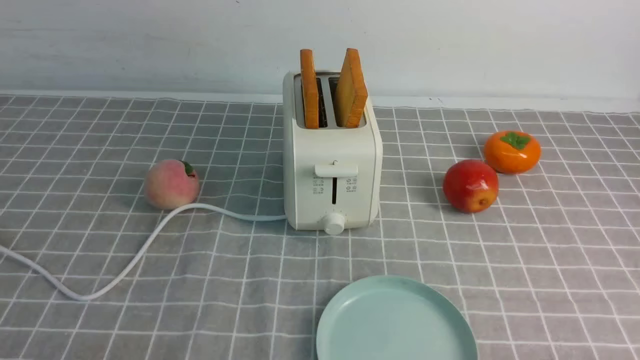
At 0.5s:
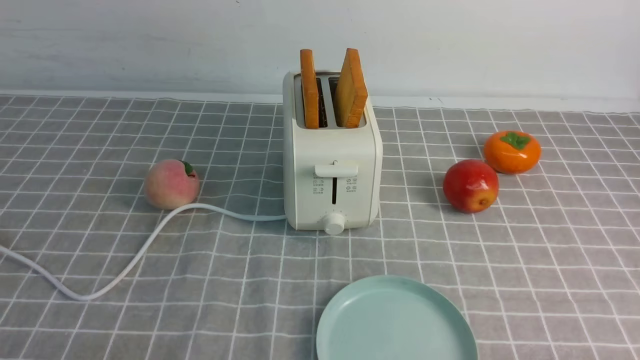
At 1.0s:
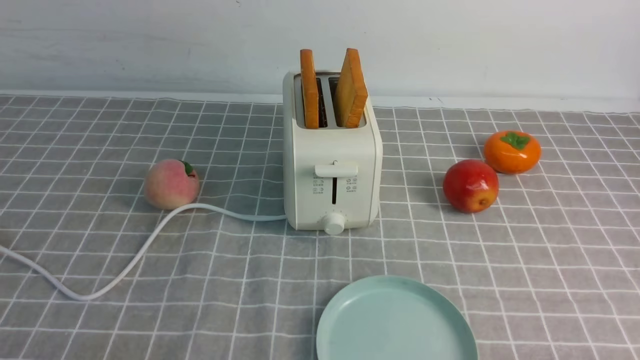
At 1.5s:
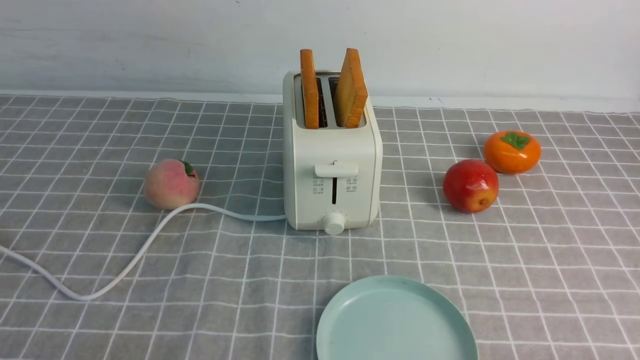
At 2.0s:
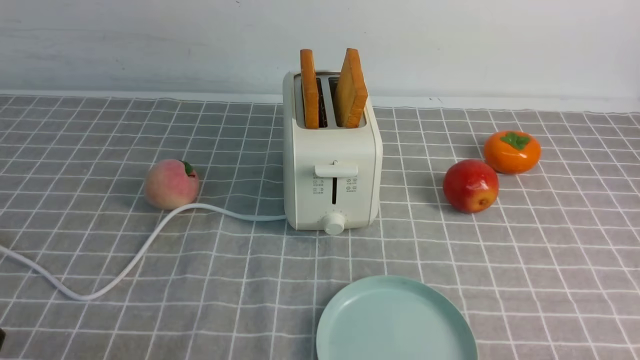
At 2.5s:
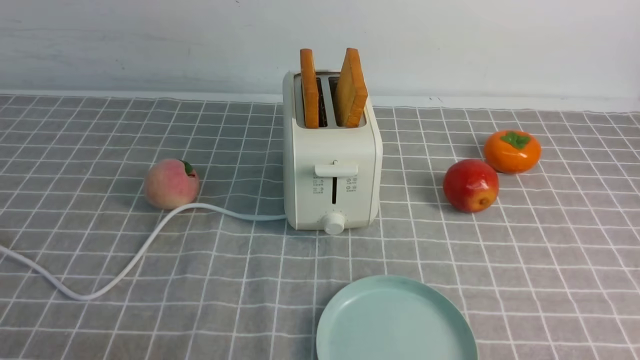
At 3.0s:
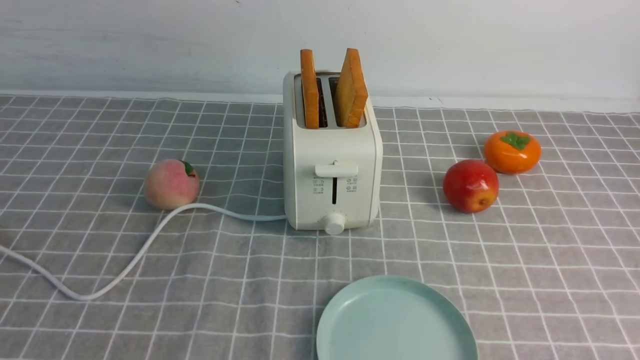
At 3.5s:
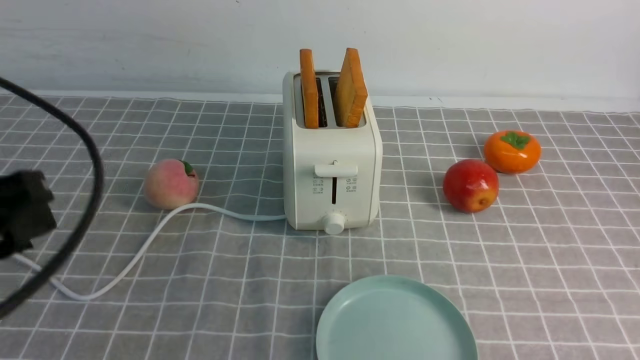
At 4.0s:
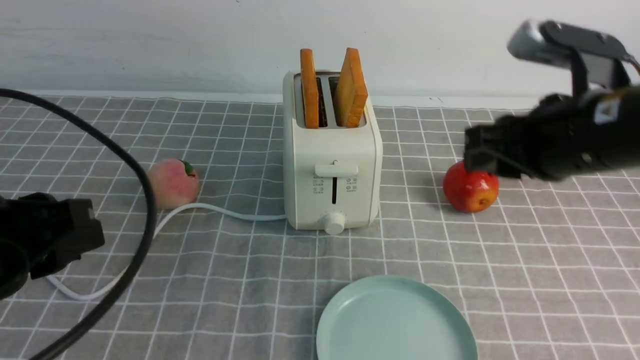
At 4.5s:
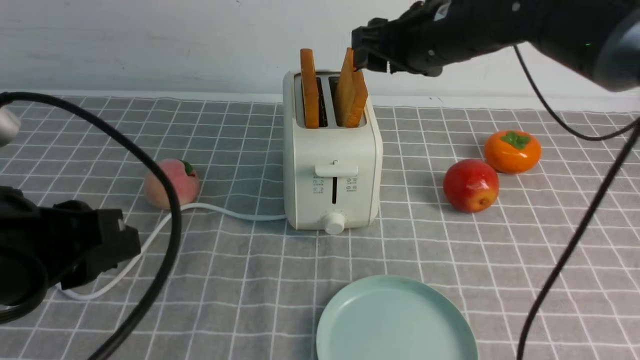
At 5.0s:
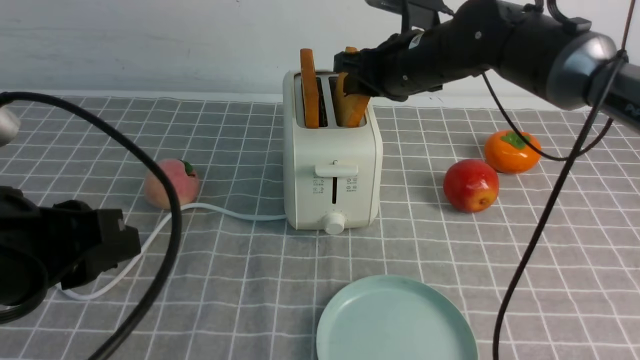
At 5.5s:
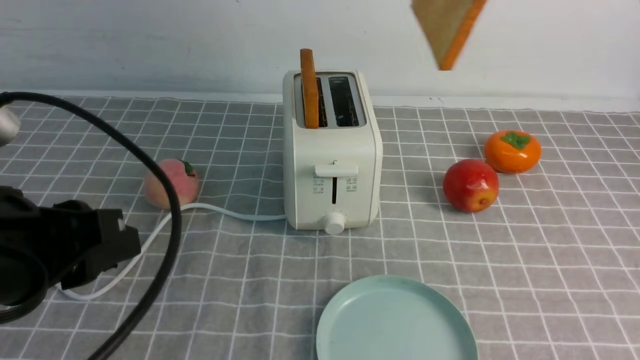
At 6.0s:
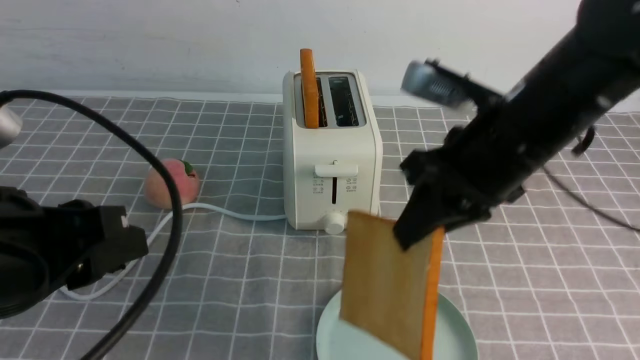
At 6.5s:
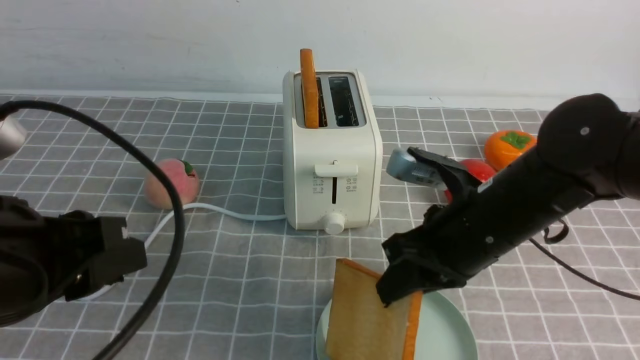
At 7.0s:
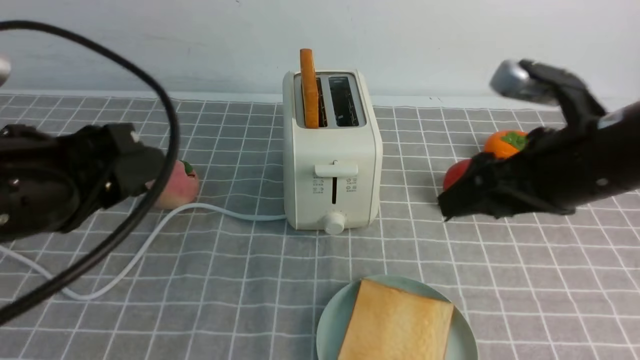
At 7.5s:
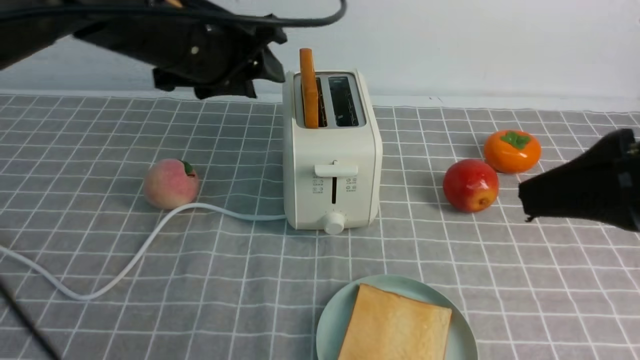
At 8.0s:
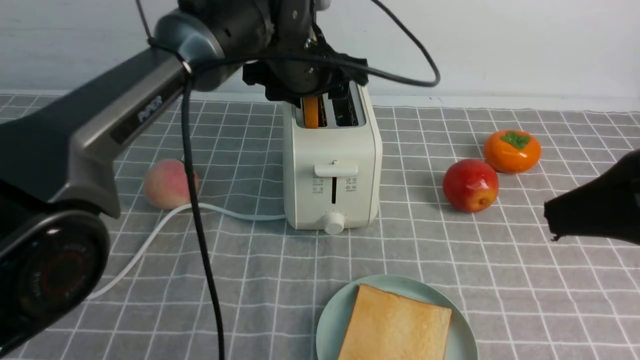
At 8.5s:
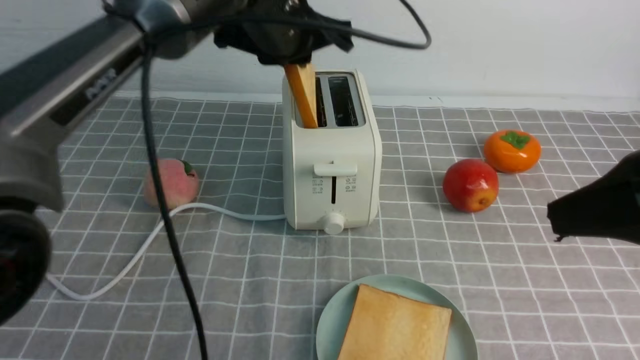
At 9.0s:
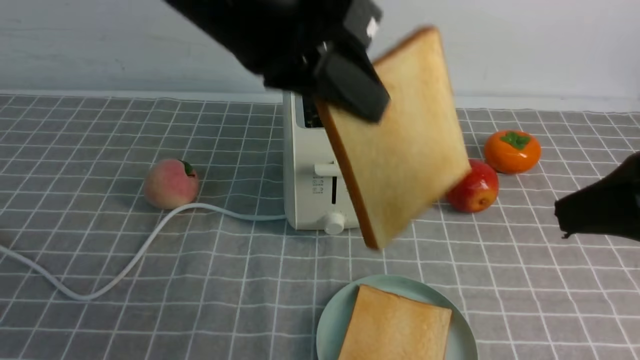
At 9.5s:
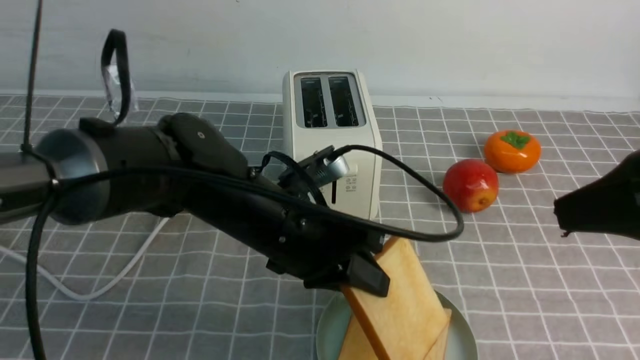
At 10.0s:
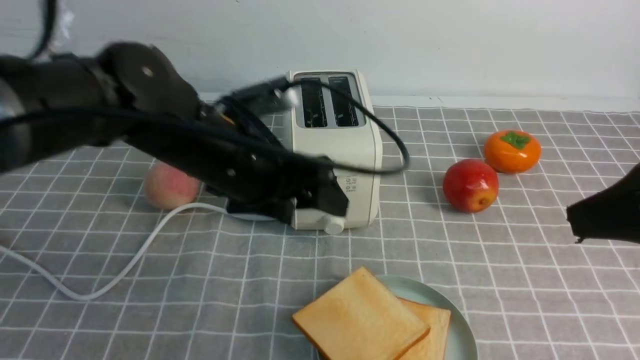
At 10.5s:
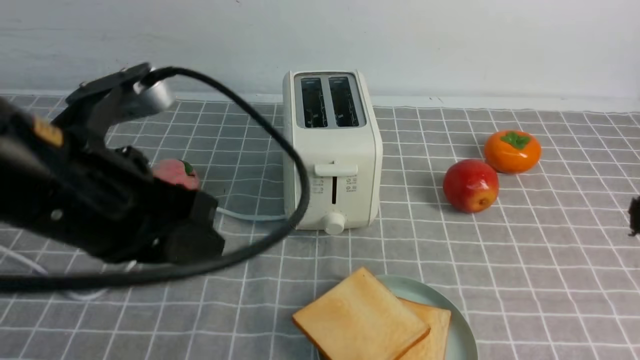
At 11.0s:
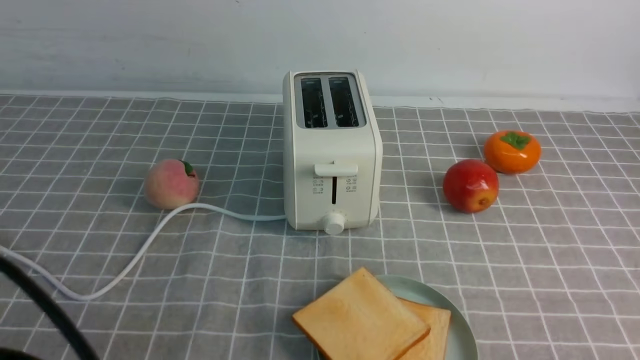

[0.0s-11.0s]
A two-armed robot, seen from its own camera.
Task of the whole recording: take toasted bread from bread machine on grey coffee table place on plate.
Step, 0.0s to 5.0s: use the right arm to take out a slice of bread.
Step, 5.5s to 7.0s: use the right arm to put a slice of bread into the plate.
Step, 7.5s to 8.5s: use the left arm to take out a slice of bread.
Step, 9.0s to 10.0s: use the left arm to put a slice of bread into the empty plate.
2.0s to 3.5s: The left gripper heads upward and forward, covering about 20 cm.
3.5s to 5.5s: The right gripper travels forward and to the left by some 20 cm, and opens, then closes again.
5.5s to 7.5s: The right gripper moves backward, about 20 cm, and opens up; the left gripper goes some 20 cm forward.
7.5s to 9.0s: The left gripper moves backward and to the right, some 10 cm, and closes.
9.0s to 11.0s: The right gripper heads downward and backward, covering roughly 15 cm, and closes; the left gripper is displaced backward, to the left and downward by some 25 cm, and opens, then closes once more.
